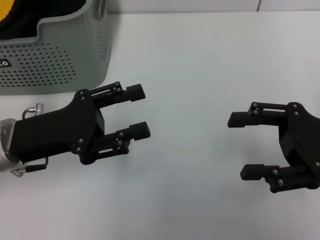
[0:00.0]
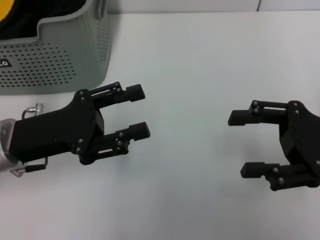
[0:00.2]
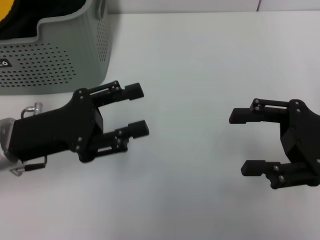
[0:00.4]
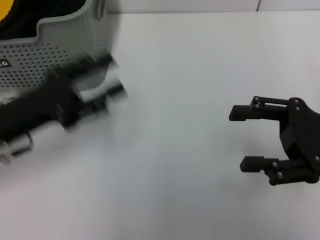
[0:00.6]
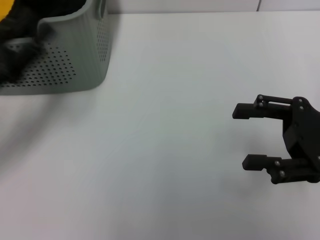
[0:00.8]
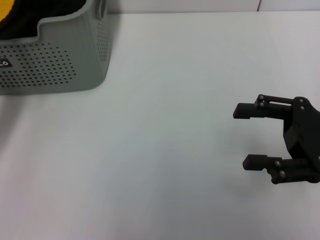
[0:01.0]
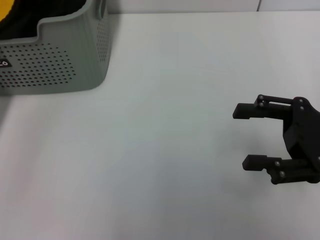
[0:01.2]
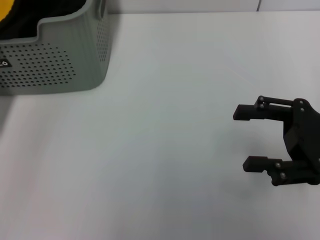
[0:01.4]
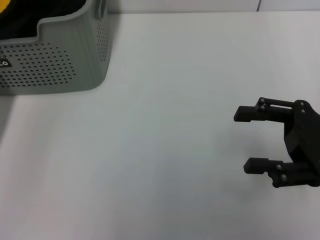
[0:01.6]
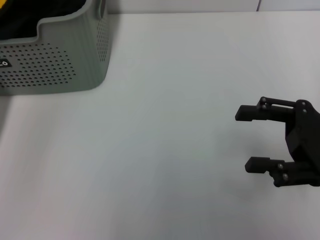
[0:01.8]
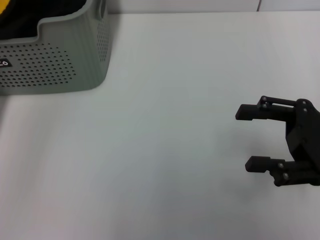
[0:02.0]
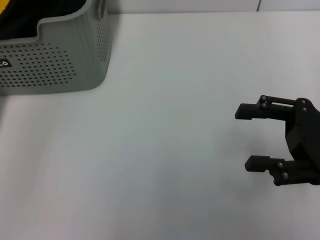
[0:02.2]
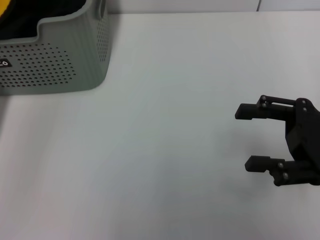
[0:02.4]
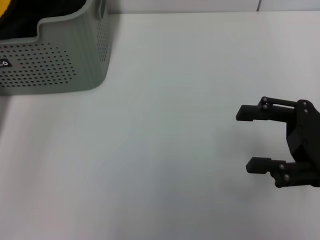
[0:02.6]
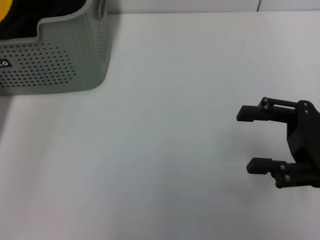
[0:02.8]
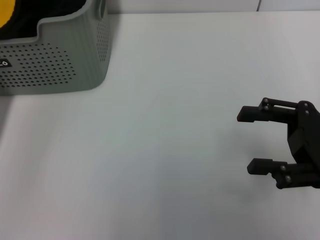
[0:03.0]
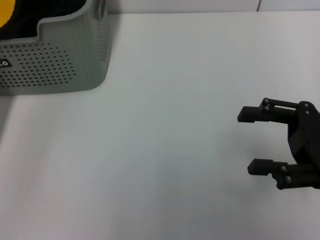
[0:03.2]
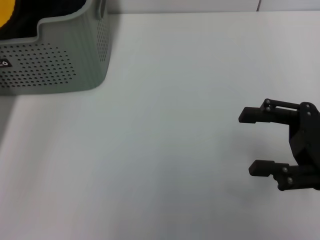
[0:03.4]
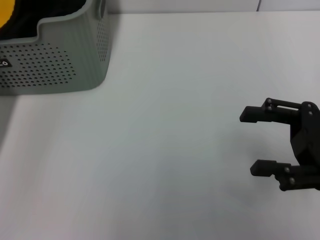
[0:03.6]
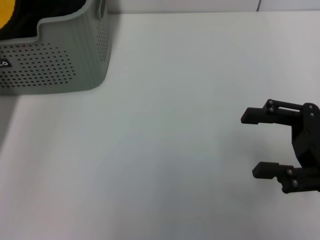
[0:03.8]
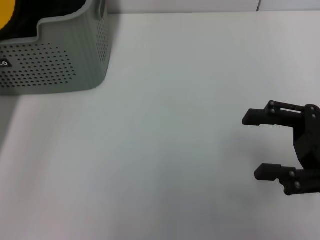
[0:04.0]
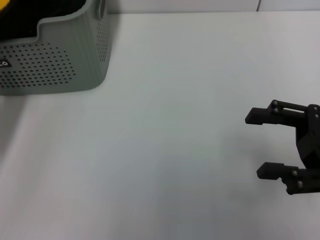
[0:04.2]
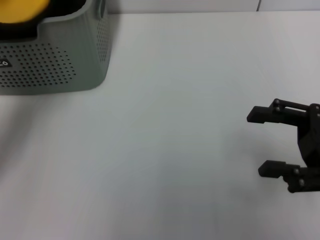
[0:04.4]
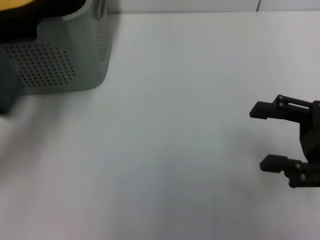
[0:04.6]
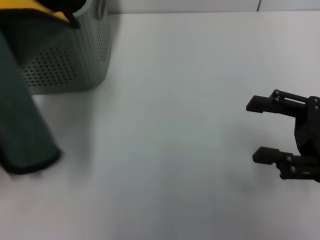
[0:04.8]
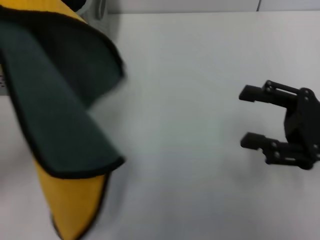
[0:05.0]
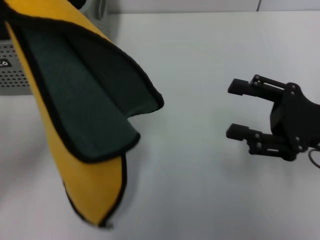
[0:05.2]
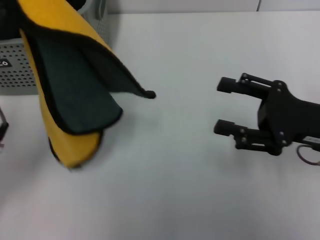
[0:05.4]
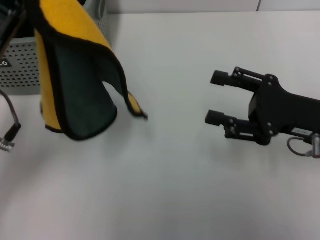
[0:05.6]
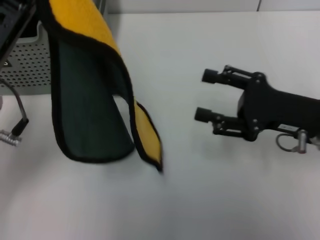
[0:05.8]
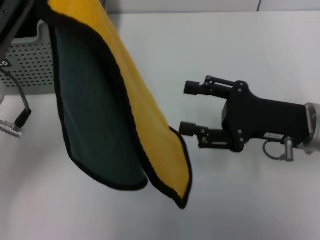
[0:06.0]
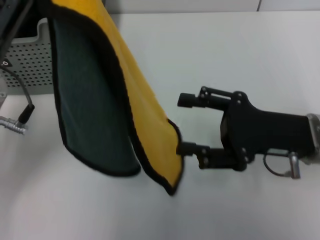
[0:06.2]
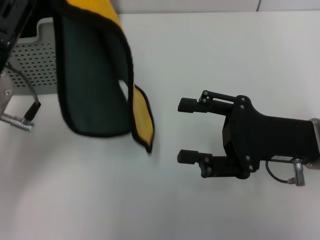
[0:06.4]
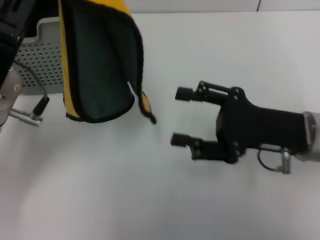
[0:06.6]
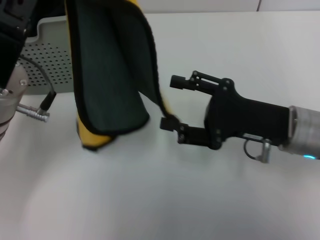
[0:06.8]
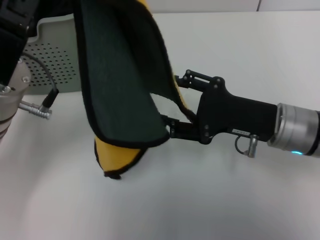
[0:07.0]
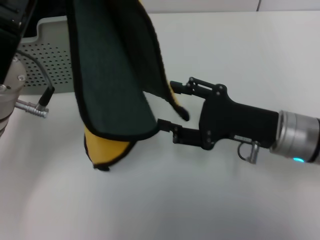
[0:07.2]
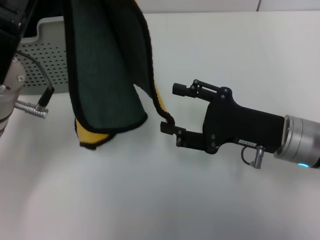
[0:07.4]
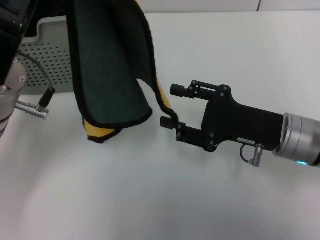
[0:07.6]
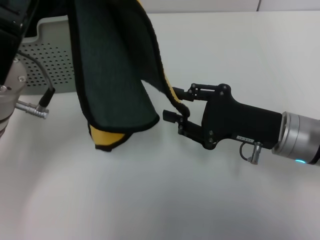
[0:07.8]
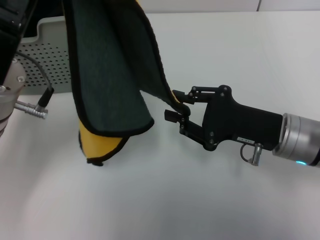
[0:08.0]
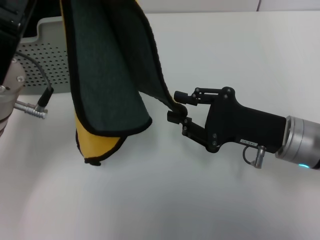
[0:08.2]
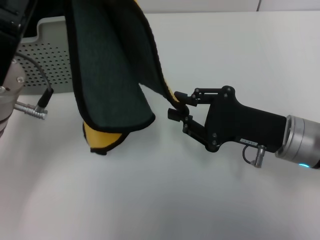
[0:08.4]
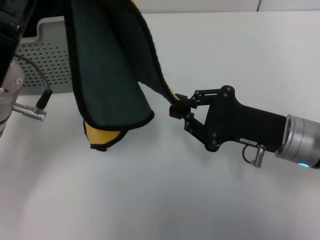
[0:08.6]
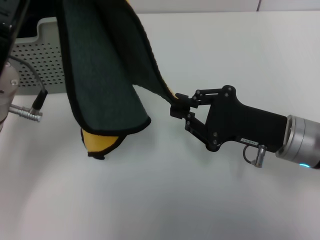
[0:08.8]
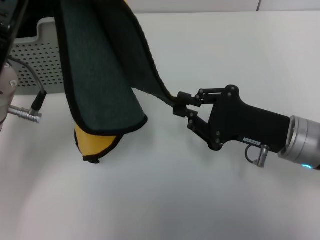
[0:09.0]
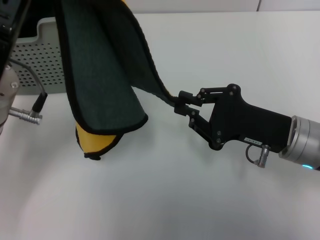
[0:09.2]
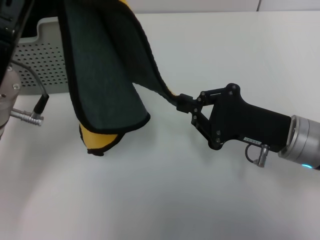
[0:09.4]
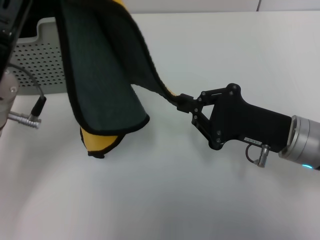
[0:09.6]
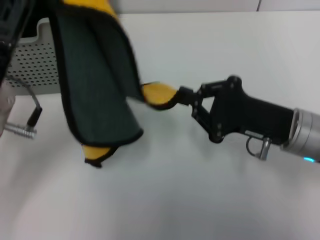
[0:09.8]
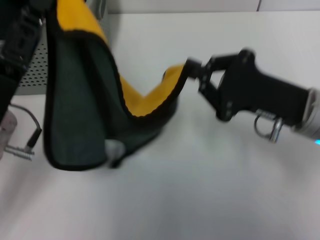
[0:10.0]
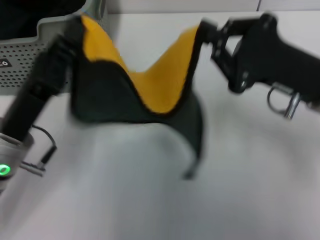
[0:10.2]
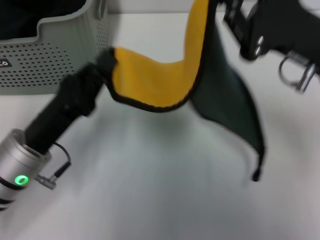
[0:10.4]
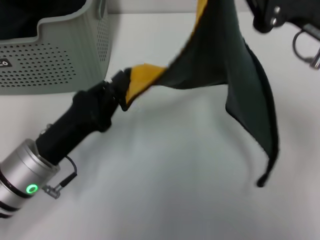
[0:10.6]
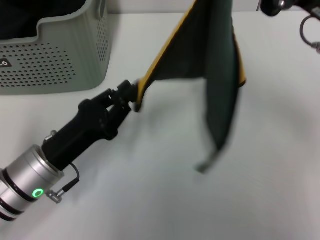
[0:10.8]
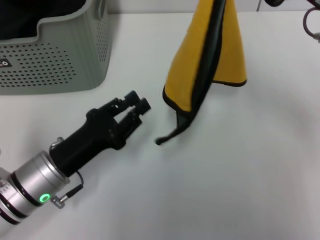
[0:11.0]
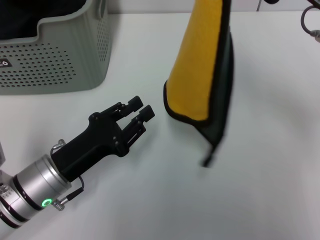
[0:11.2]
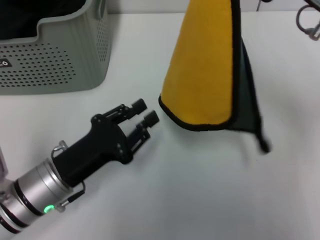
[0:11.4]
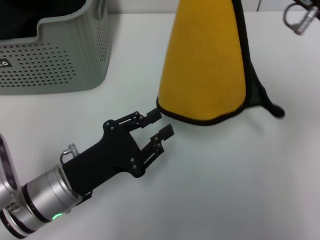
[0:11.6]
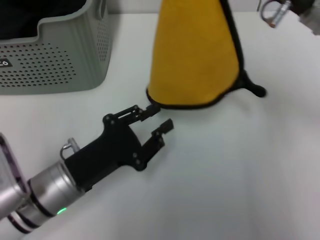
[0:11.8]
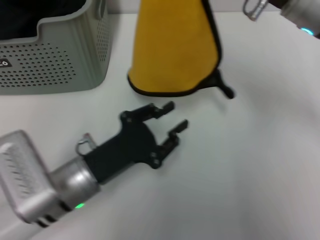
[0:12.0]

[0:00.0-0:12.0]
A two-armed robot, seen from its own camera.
Task of the whole recording: pick up the towel from the storage box and lay it flat on the table.
Step, 0:00.0 to 0:04.0: Pick up a towel with the left gripper.
Step, 0:04.2 to 0:08.8: Spread the towel flat with the left gripper.
0:00.0 to 0:01.6: The left gripper shifts approximately 10 cm to the left.
0:01.6 to 0:03.0: The grippers stay close to where they were, moving slightly.
0:03.0 to 0:04.4: The left gripper is displaced backward by some 5 cm, and closes up.
0:04.4 to 0:06.0: The right gripper moves to the left, some 5 cm. Meanwhile the left gripper goes roughly 10 cm to the right.
0:07.6 to 0:09.0: The right gripper closes up.
0:09.0 to 0:10.4: The right gripper moves upward, about 10 cm, while the left gripper goes about 10 cm downward.
0:10.4 to 0:12.0: The right gripper goes about 5 cm forward. The left gripper shifts by approximately 5 cm, and opens.

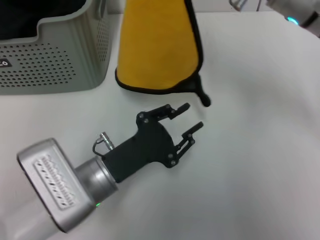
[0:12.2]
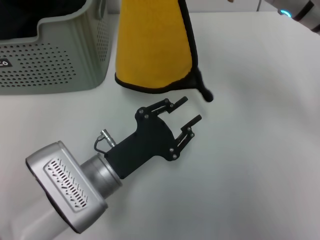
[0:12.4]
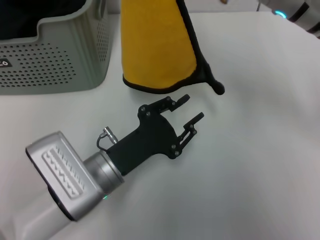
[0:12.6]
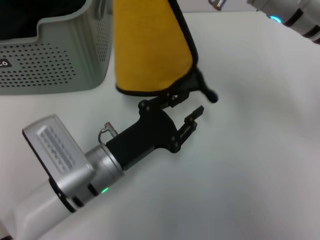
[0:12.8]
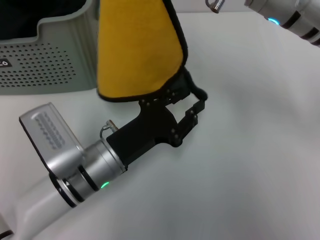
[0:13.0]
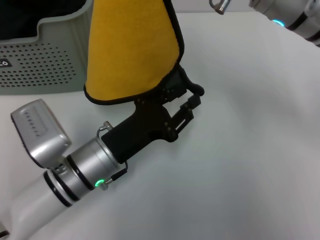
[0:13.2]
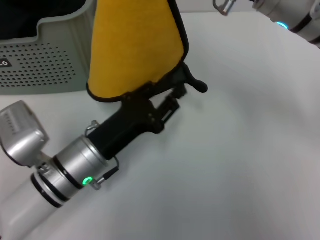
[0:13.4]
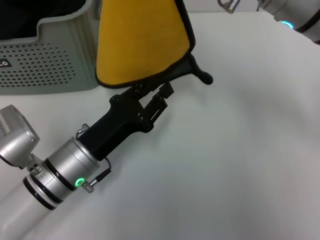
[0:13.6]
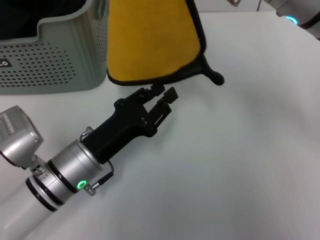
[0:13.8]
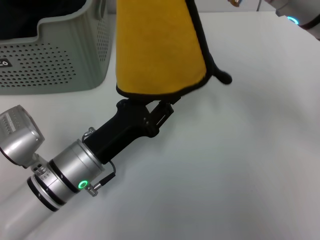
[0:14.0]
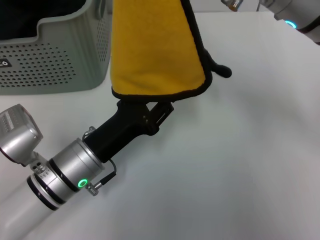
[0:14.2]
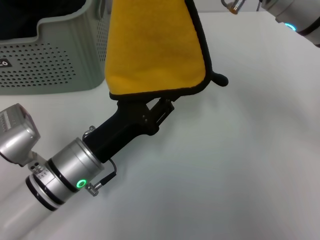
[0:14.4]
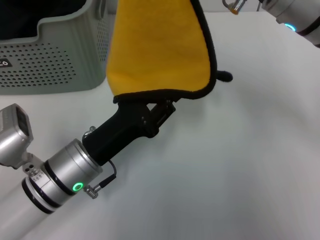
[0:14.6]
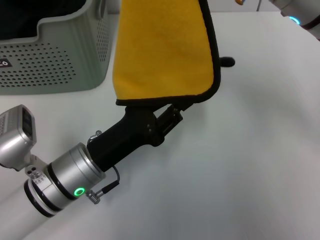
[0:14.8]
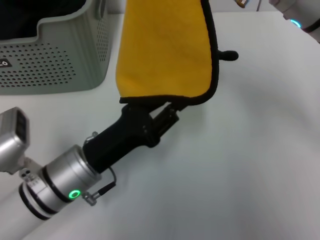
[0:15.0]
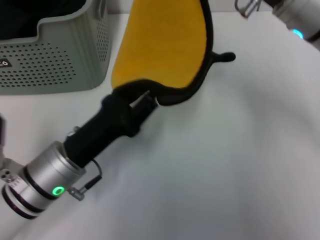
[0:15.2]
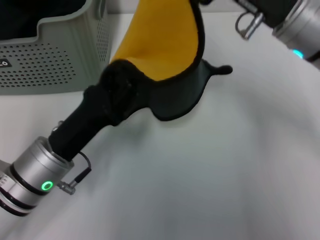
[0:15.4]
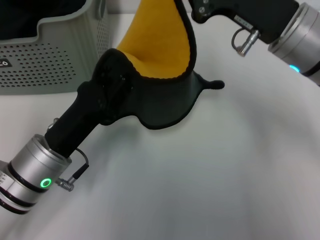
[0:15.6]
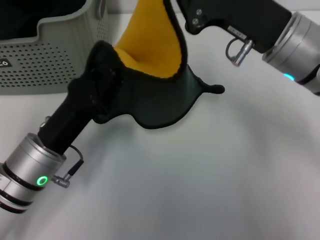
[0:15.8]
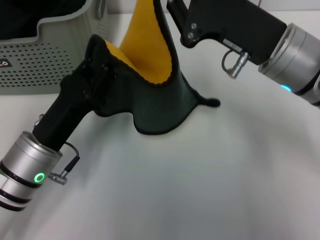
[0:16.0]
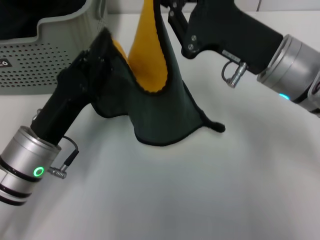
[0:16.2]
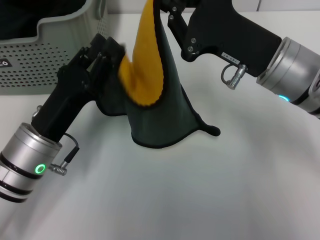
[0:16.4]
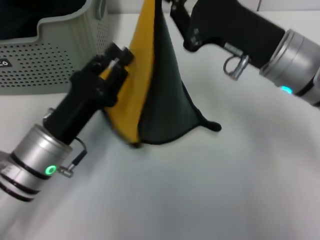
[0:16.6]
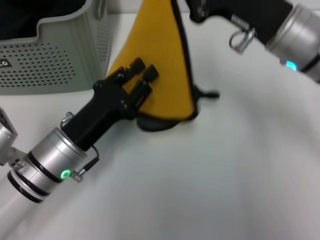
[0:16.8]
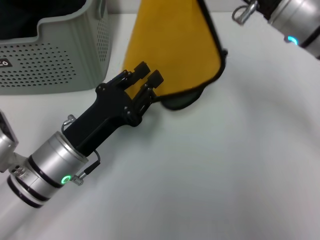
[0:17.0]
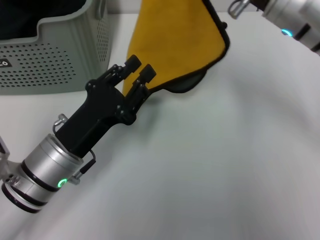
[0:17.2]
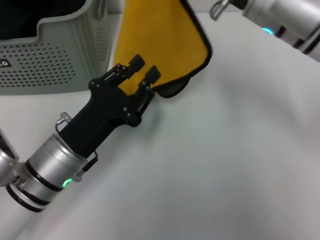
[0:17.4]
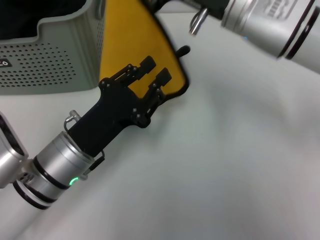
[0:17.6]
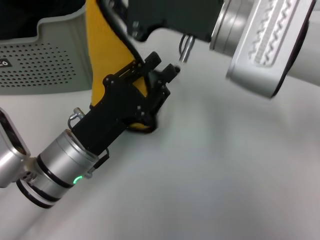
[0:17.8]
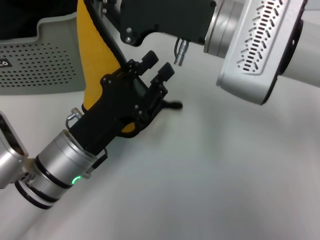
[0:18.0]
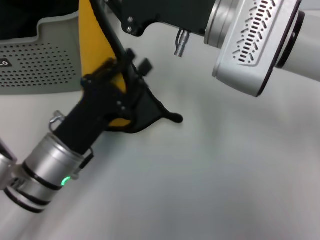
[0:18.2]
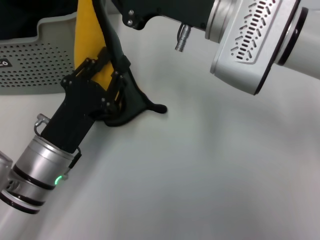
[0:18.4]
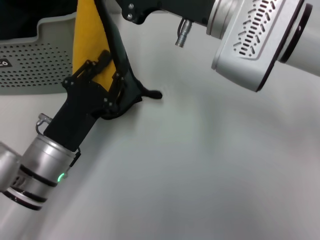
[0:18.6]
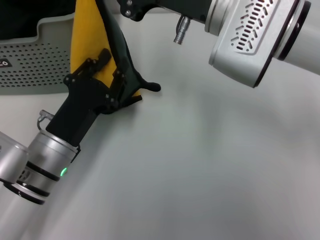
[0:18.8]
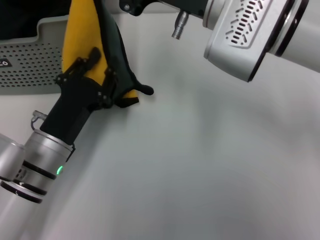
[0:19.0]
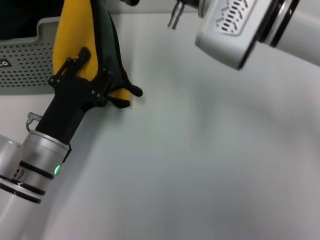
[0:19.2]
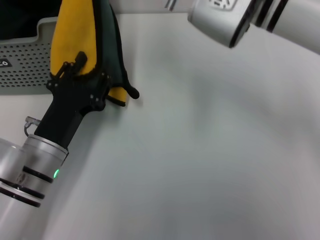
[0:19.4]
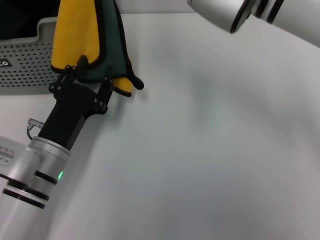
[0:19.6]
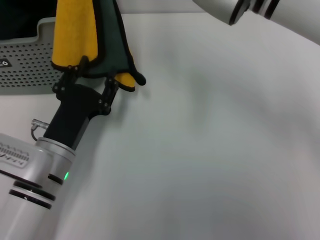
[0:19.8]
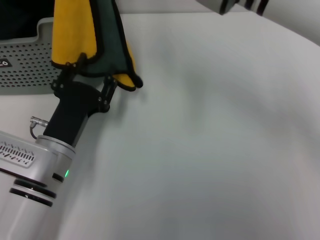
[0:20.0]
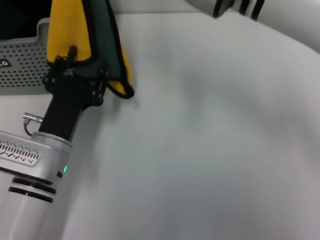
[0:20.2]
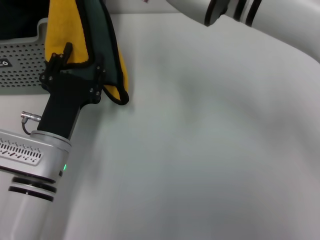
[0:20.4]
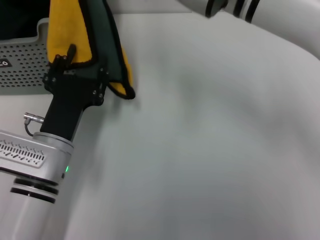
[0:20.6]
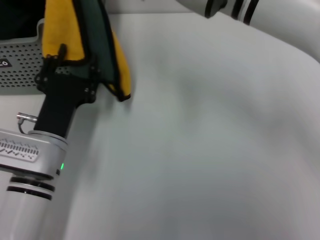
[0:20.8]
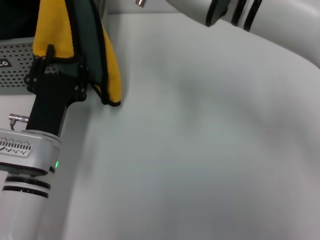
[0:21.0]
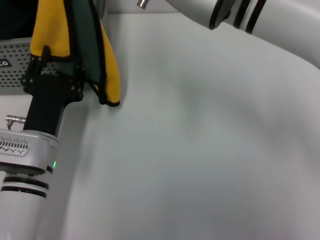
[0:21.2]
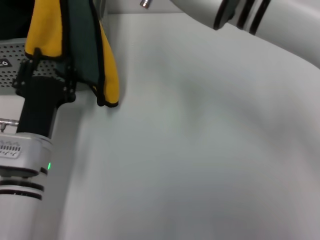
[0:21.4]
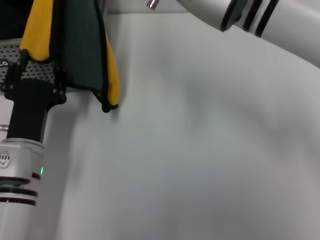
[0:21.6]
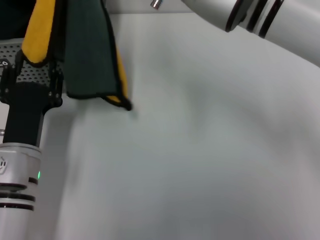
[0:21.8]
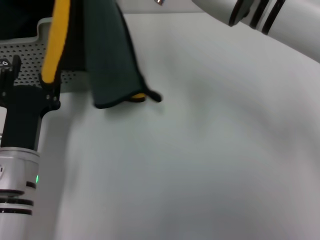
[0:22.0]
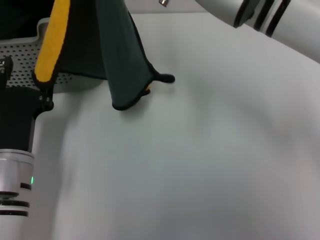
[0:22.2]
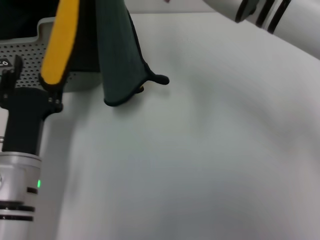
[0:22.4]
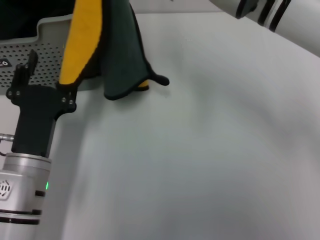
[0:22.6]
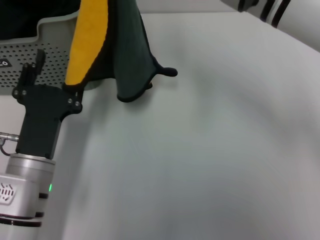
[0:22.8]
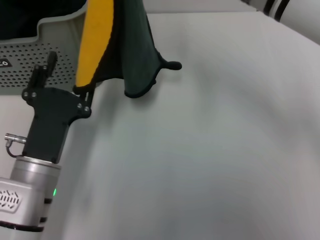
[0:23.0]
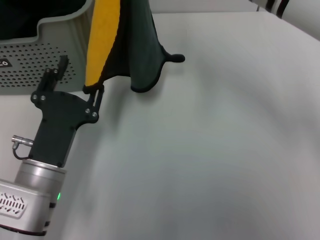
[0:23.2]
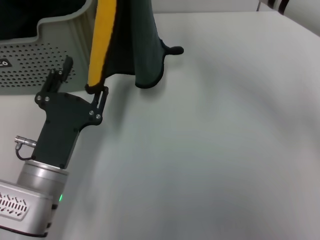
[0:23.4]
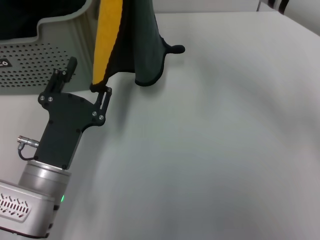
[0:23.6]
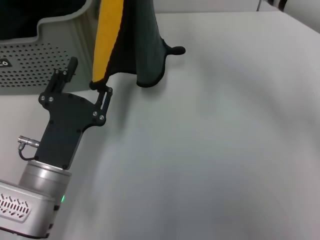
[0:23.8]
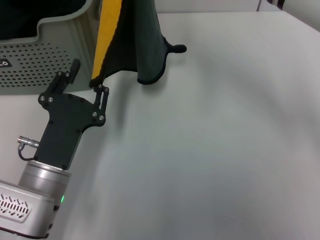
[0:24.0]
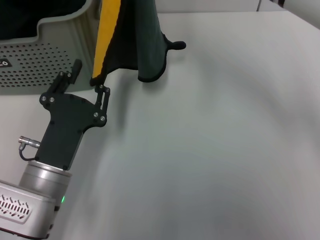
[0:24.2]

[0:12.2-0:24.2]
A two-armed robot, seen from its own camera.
Task of the whole recording: pick up the towel from the storage box and lay it flat on the table.
0:15.2 to 0:16.6: The right gripper moves roughly 5 cm.
0:16.6 to 0:18.2: The right gripper travels to the left by about 5 cm.
0:18.2 to 0:19.8: The right gripper moves upward, about 5 cm.
